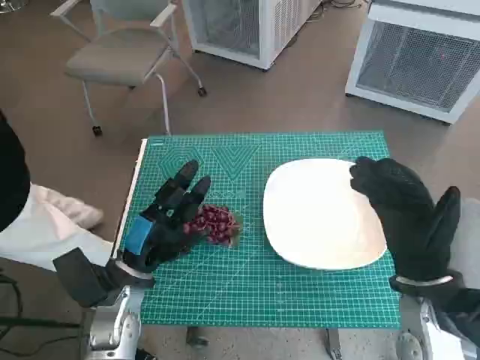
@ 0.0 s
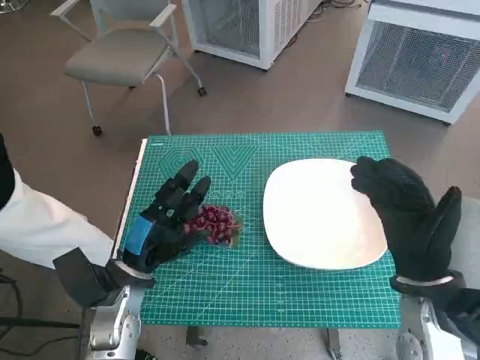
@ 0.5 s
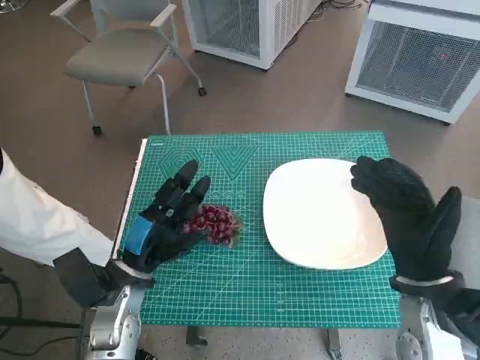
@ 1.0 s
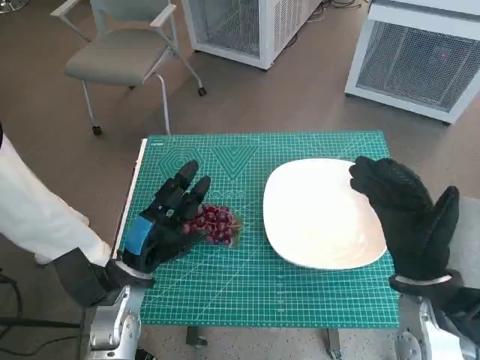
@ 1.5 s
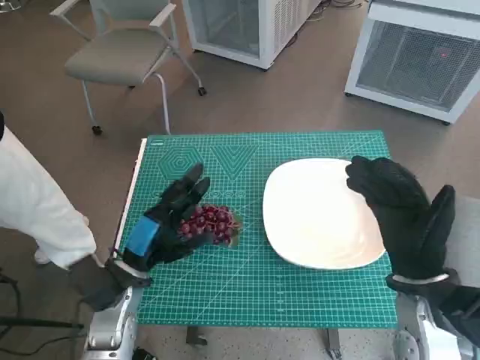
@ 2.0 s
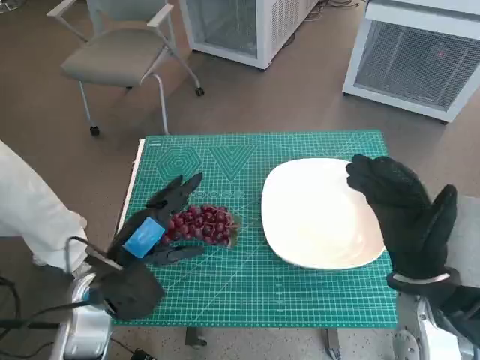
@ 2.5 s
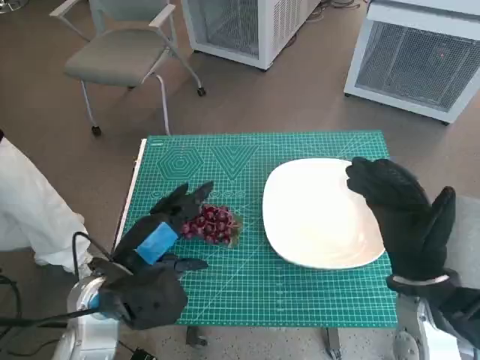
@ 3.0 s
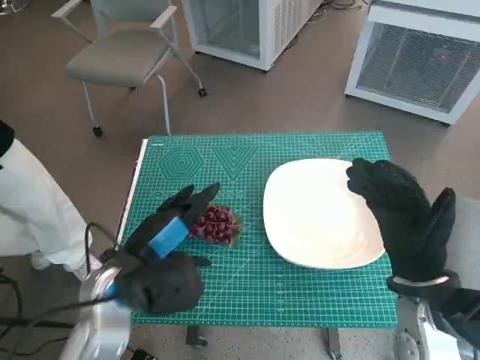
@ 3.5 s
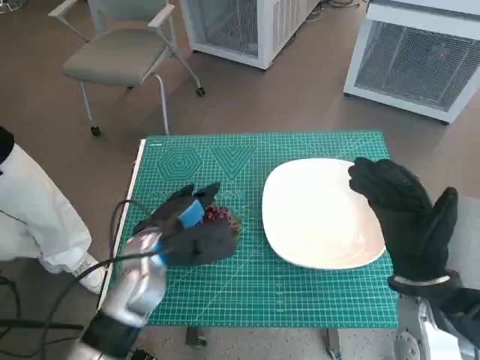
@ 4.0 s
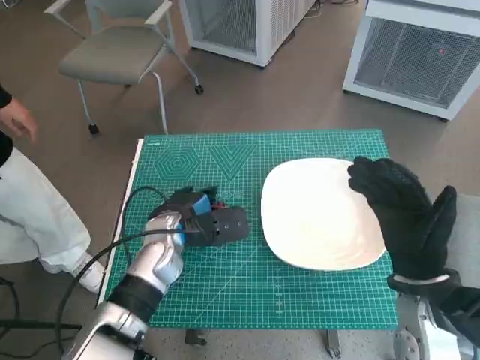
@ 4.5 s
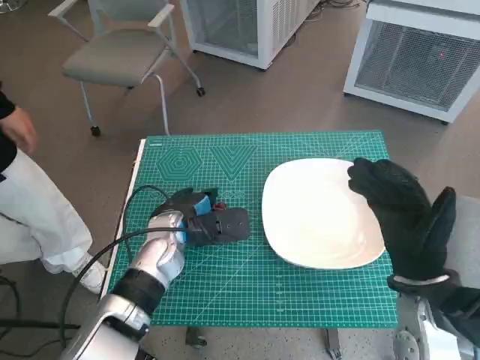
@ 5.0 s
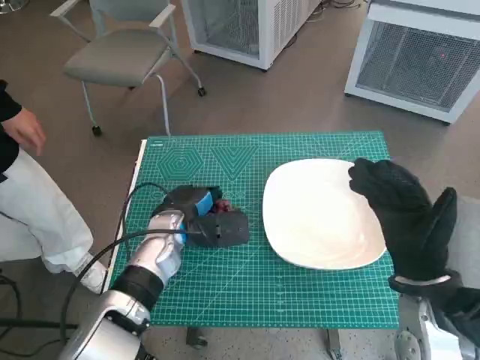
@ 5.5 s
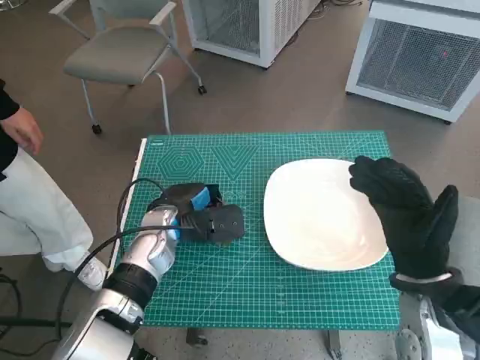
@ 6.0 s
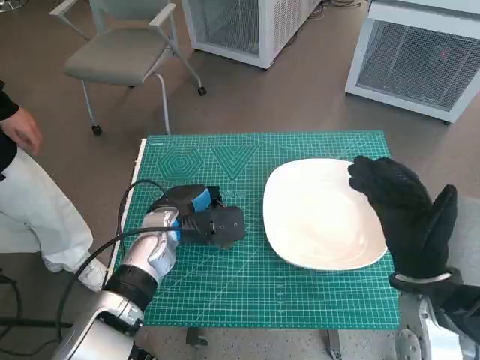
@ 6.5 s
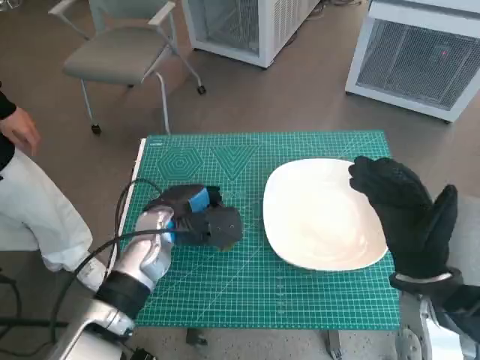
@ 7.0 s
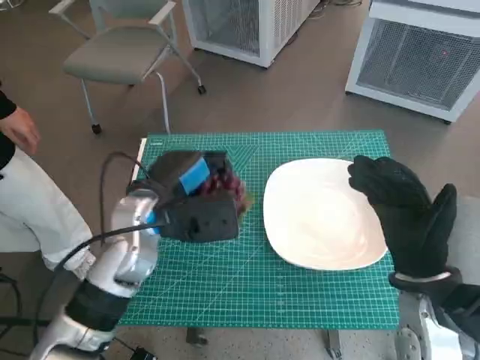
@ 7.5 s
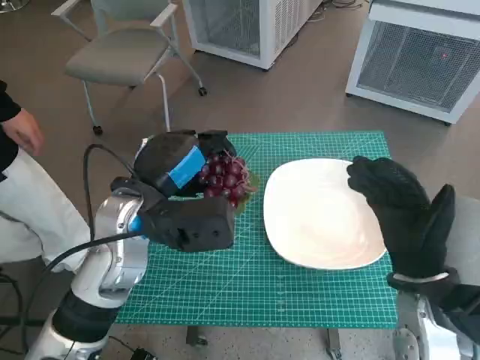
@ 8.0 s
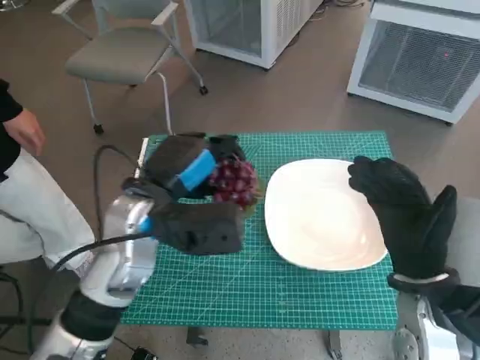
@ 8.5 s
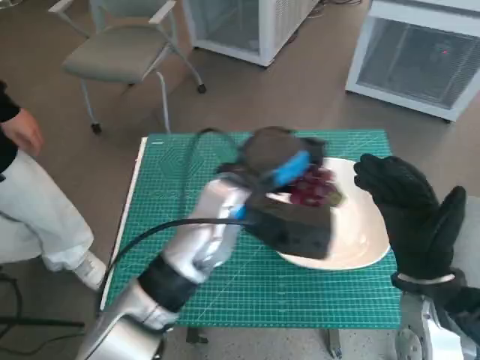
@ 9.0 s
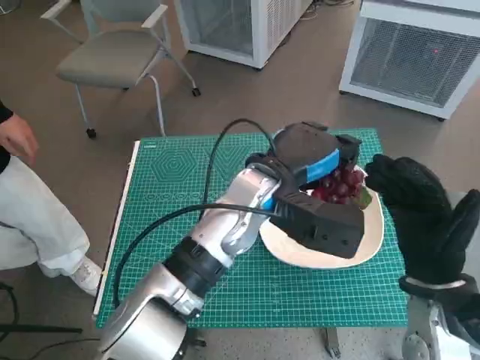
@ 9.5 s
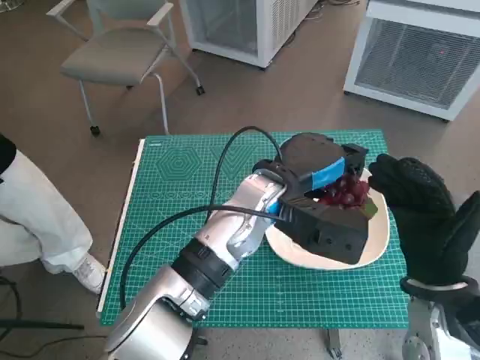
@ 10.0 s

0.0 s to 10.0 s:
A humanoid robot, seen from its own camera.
Task of the whole recording: Pick up the grapes and put them on the plate.
Step, 0.0 to 6.0 s: Grasp the grapes with left hand.
2.0 to 4.0 s: The left hand moves some 5 cm.
4.0 to 6.0 s: The left hand goes roughly 5 cm forward.
6.0 to 8.0 s: The left hand moves upward and backward, roughly 10 cm.
8.0 to 10.0 s: The left hand goes approximately 15 cm to the right.

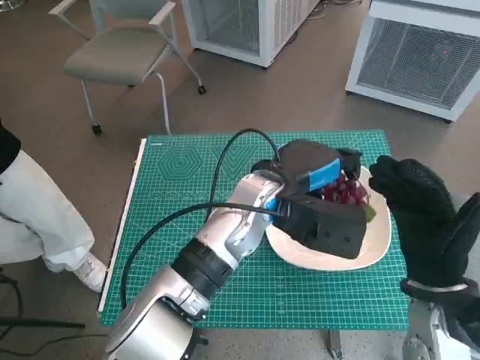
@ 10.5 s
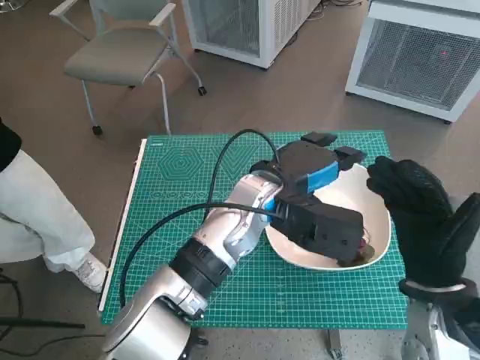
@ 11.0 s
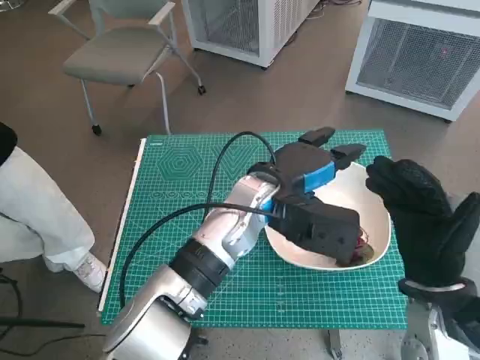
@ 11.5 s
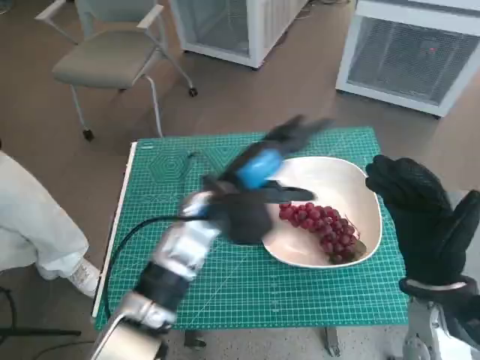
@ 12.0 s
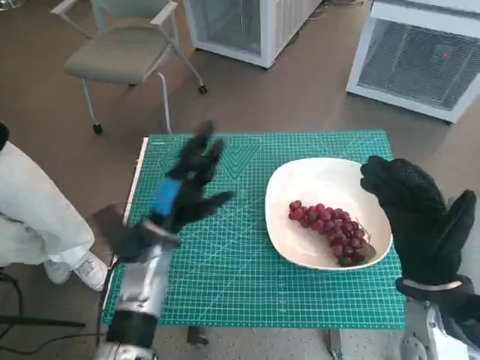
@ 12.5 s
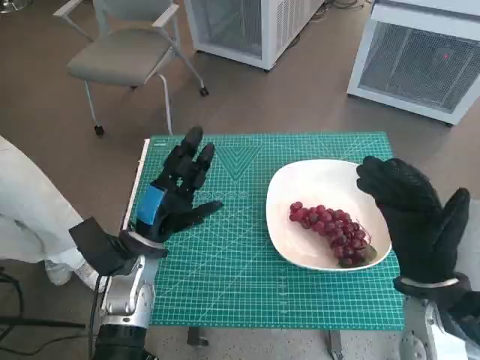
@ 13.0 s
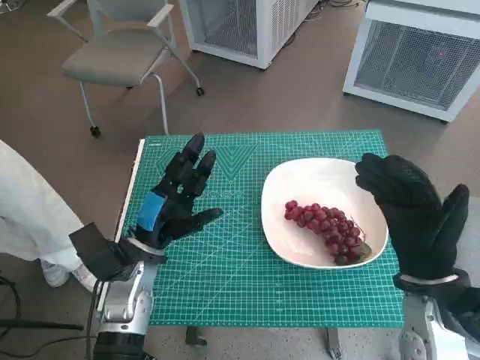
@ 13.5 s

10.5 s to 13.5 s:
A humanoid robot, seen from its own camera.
Task of the whole recording: Pick up the grapes and put them on the plate.
10.5 to 12.0 s: The left hand shifts roughly 5 cm to the left.
12.0 to 13.5 s: The left hand is displaced to the left, downward and backward by roughly 15 cm.

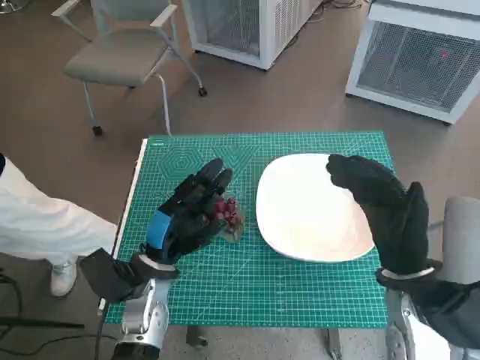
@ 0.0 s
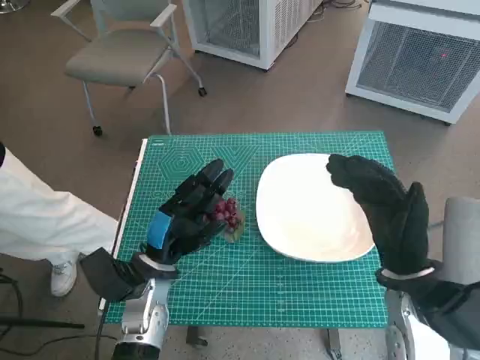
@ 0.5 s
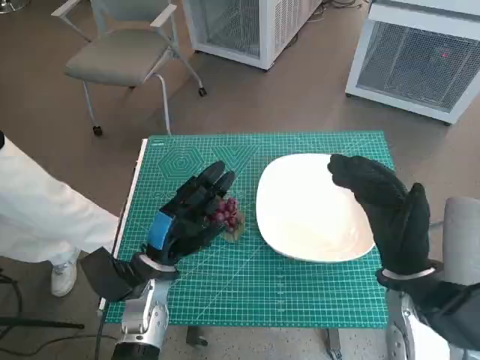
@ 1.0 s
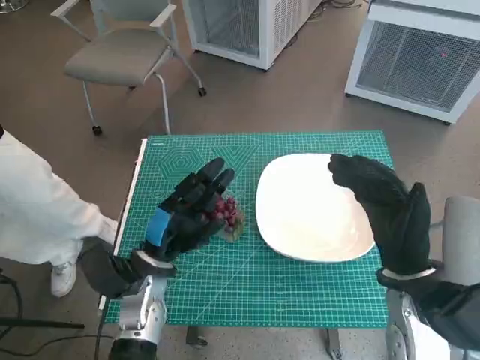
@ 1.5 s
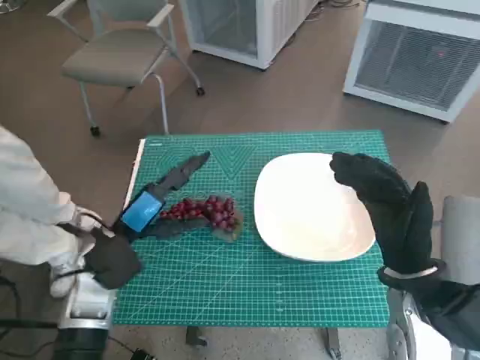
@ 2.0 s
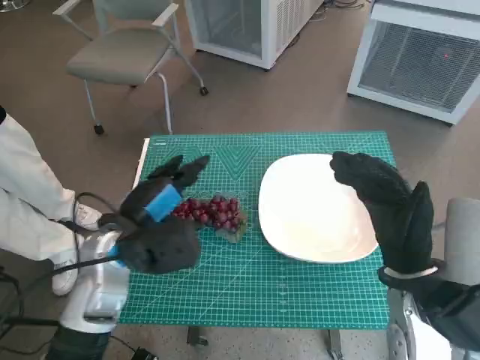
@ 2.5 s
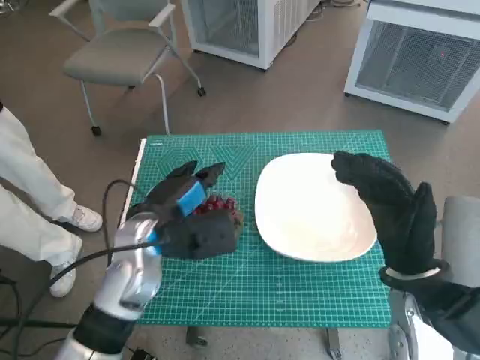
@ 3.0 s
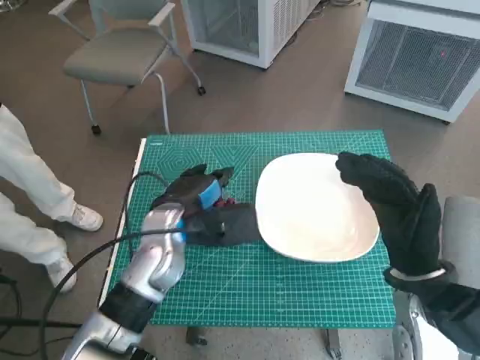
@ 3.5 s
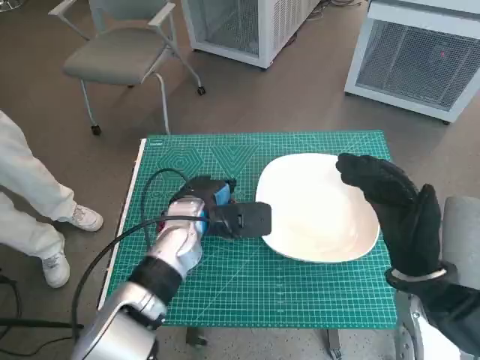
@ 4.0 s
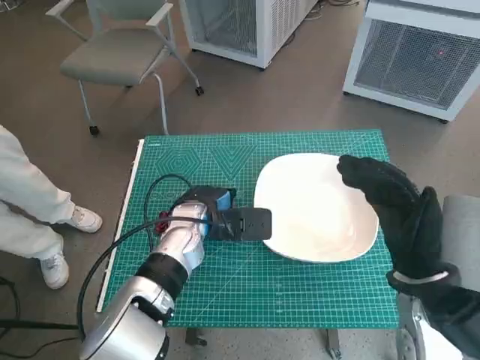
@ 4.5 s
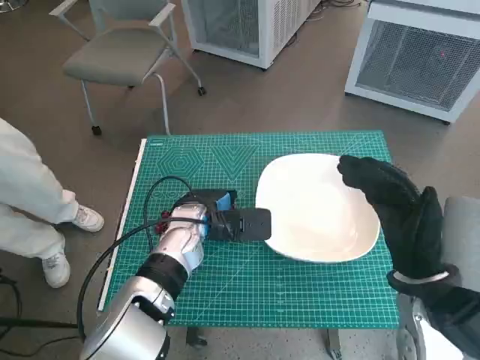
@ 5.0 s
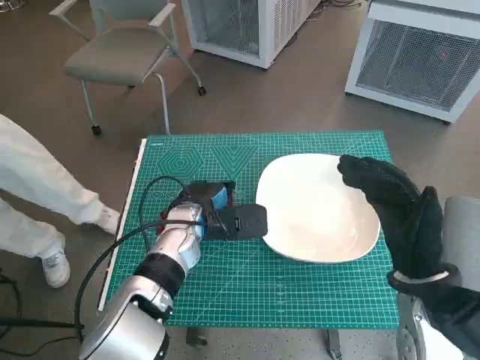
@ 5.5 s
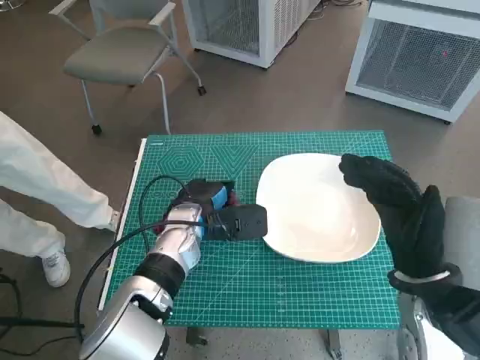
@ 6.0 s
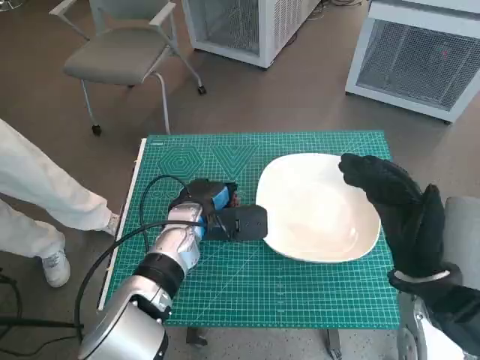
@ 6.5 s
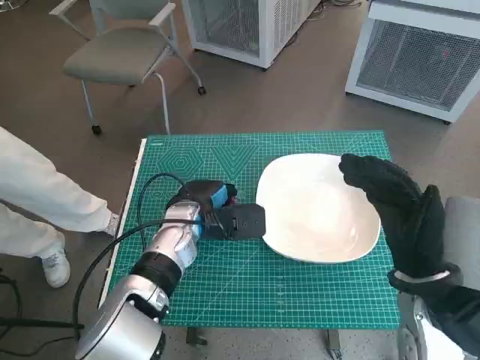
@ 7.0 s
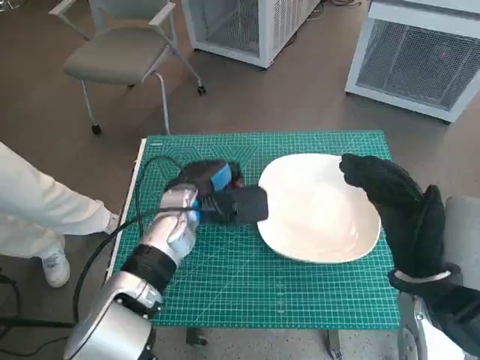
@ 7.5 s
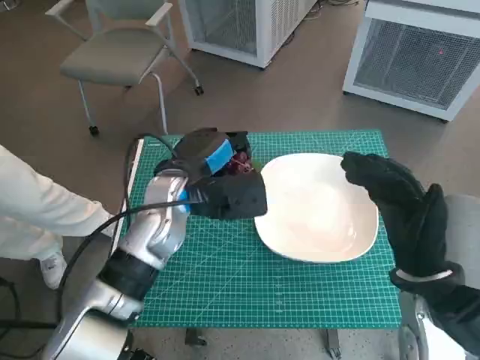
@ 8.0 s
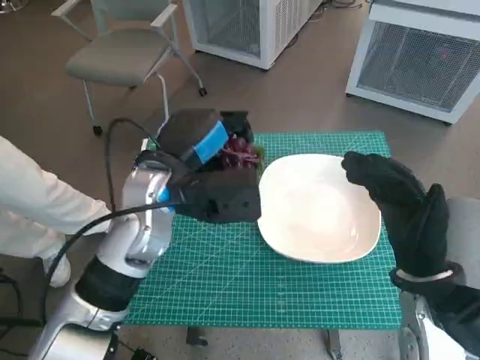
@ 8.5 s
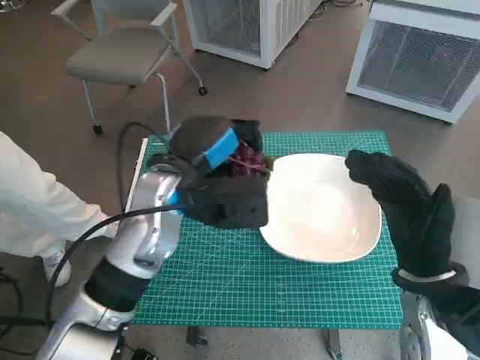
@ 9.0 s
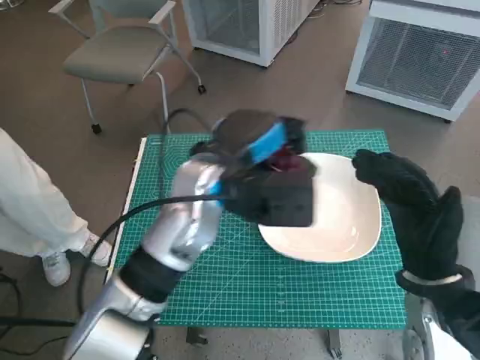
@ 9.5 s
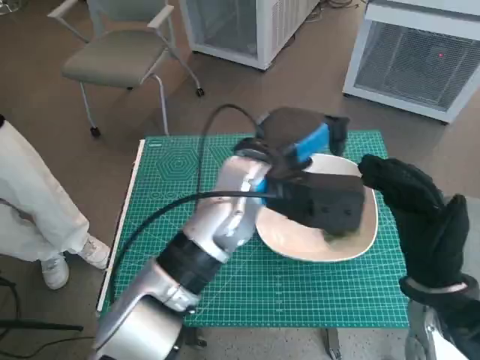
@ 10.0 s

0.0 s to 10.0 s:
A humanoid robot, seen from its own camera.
Task of the whole recording: Pick up the grapes and put them on the plate.
Step, 0.0 to 6.0 s: Grasp the grapes with left hand.
2.0 to 4.0 s: The left hand heads to the right and forward, covering roughly 15 cm.
4.0 to 6.0 s: The hands move only a little.
6.0 to 8.0 s: The left hand is displaced upward by some 10 cm.
8.0 to 10.0 s: The left hand moves to the right and upward, about 10 cm.

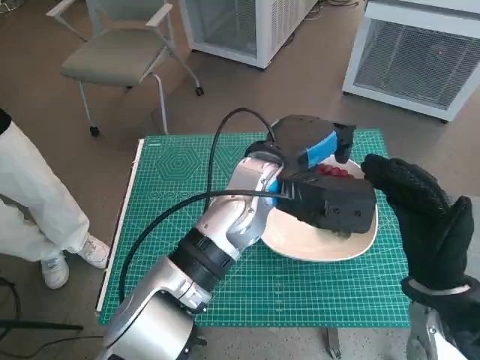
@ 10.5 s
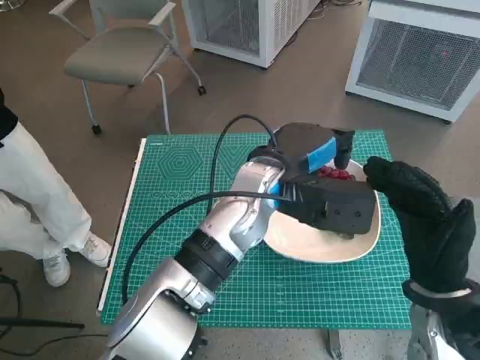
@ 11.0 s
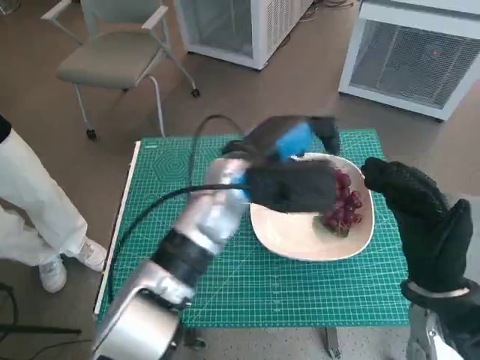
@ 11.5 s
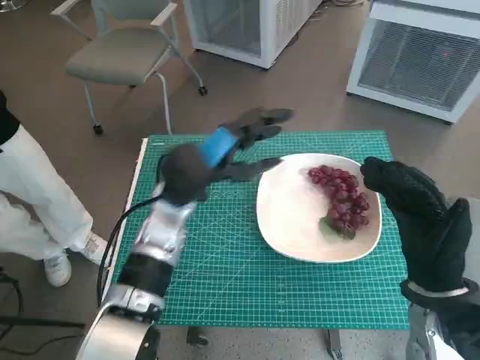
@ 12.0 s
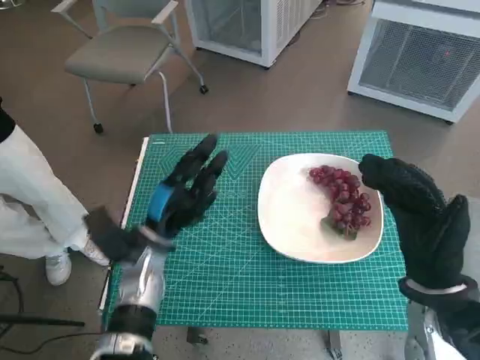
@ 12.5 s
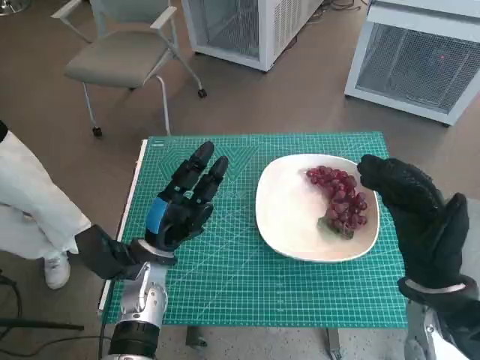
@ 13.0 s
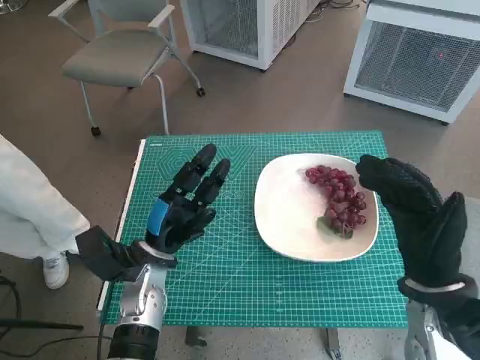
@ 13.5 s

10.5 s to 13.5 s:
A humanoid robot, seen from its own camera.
Task of the whole recording: Pick up the grapes and put them on the plate.
10.5 to 12.0 s: The left hand shifts some 10 cm to the left.
12.0 to 13.5 s: The left hand moves downward, to the left and backward, roughly 15 cm.
